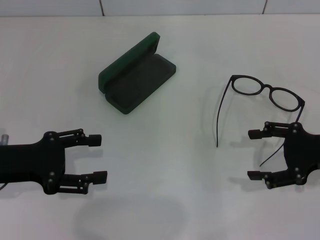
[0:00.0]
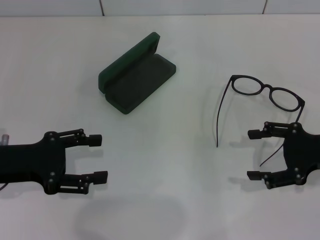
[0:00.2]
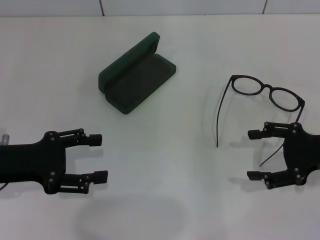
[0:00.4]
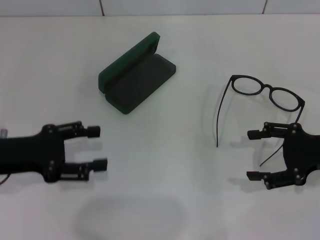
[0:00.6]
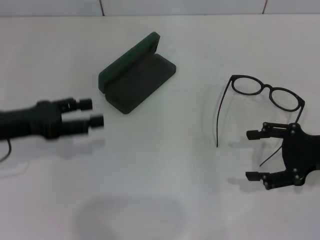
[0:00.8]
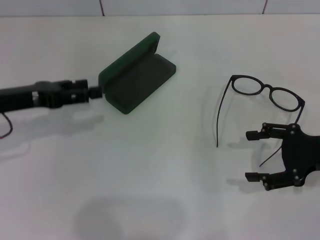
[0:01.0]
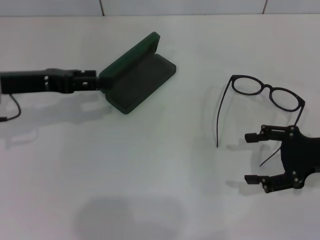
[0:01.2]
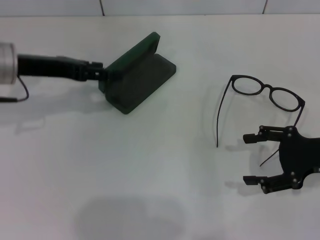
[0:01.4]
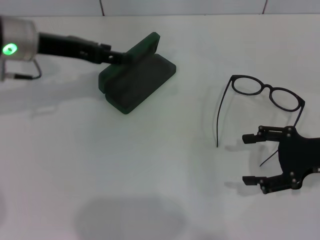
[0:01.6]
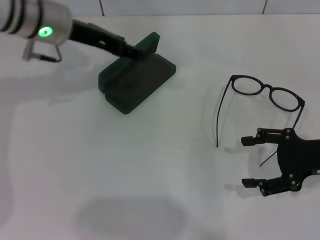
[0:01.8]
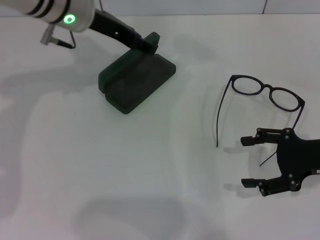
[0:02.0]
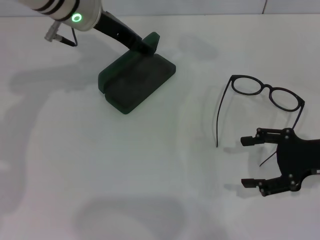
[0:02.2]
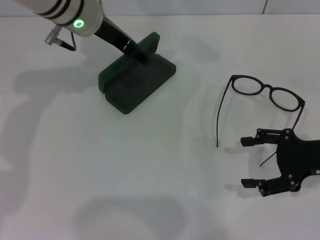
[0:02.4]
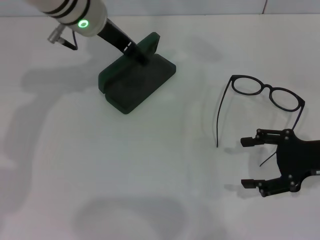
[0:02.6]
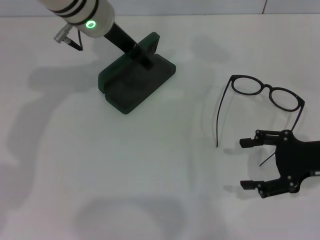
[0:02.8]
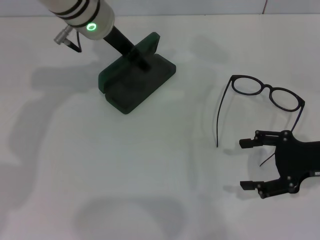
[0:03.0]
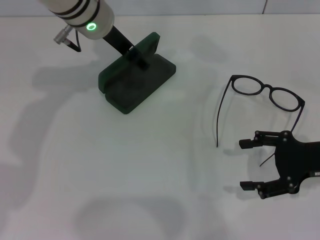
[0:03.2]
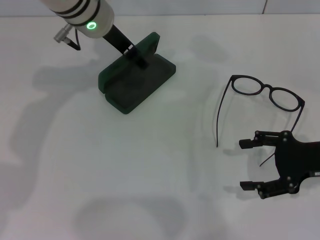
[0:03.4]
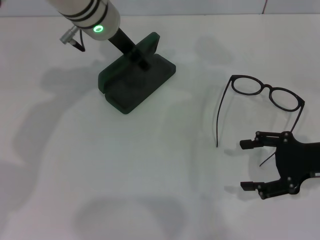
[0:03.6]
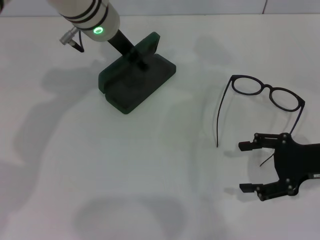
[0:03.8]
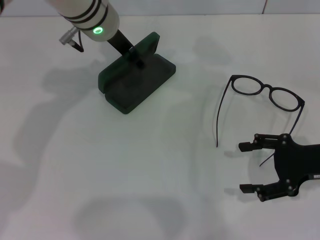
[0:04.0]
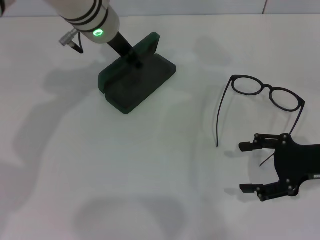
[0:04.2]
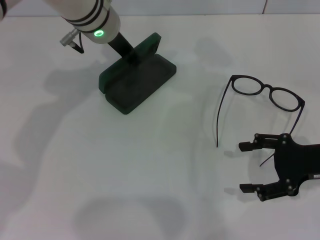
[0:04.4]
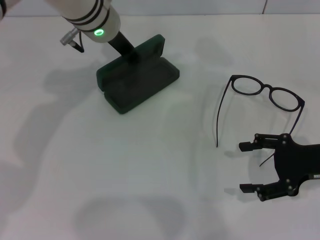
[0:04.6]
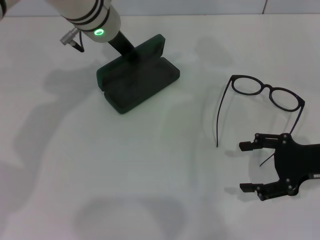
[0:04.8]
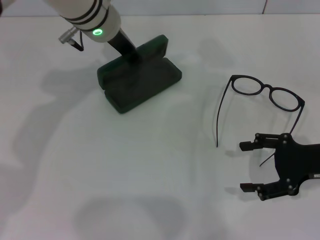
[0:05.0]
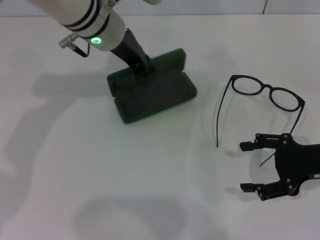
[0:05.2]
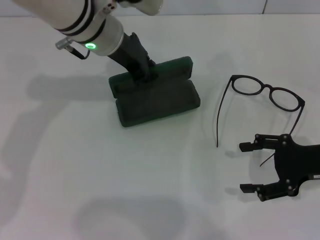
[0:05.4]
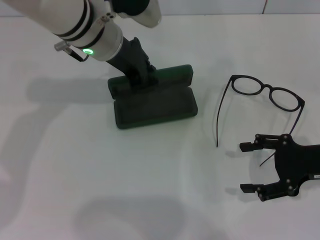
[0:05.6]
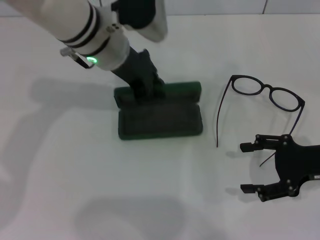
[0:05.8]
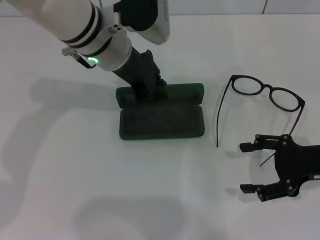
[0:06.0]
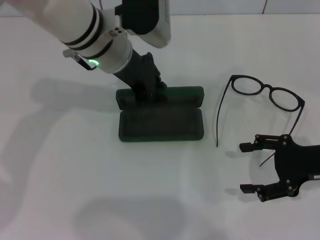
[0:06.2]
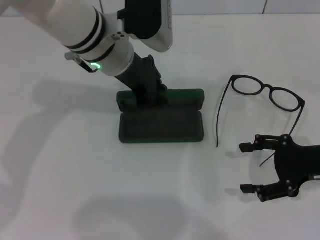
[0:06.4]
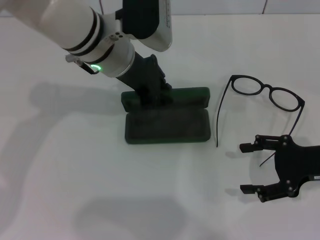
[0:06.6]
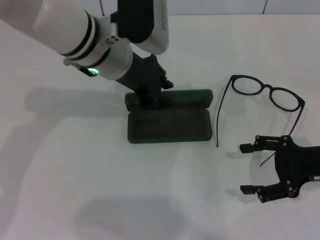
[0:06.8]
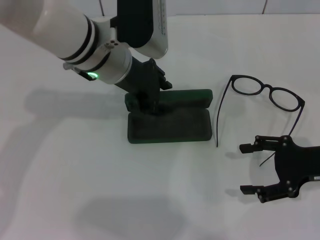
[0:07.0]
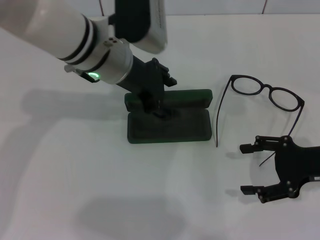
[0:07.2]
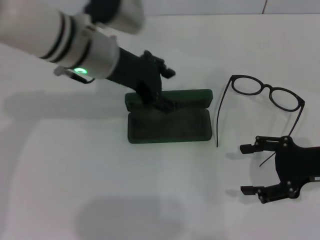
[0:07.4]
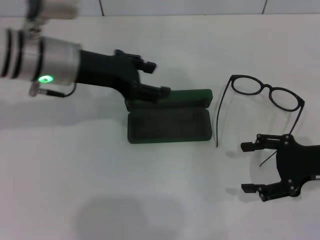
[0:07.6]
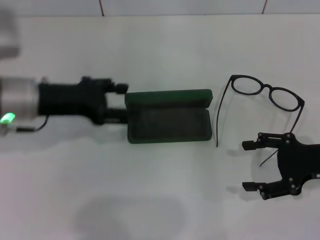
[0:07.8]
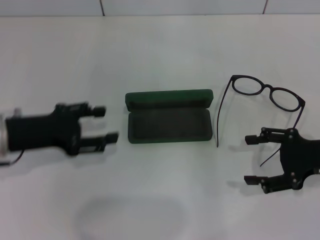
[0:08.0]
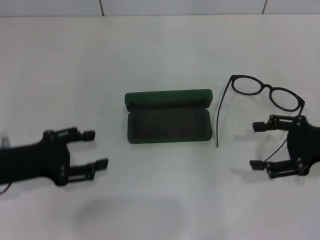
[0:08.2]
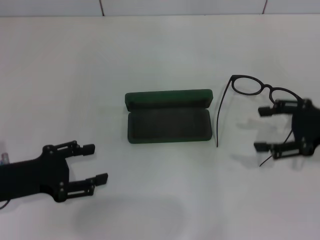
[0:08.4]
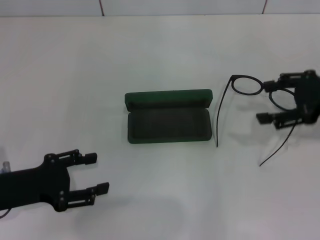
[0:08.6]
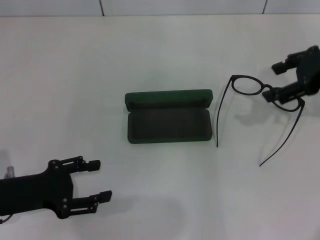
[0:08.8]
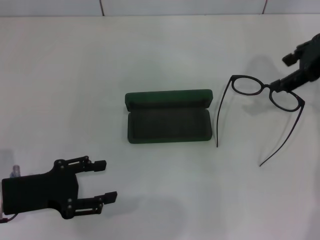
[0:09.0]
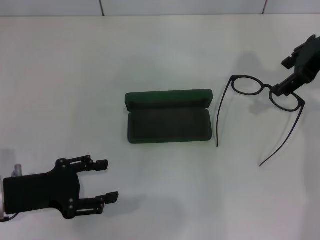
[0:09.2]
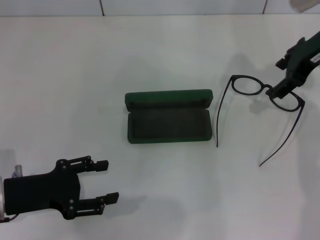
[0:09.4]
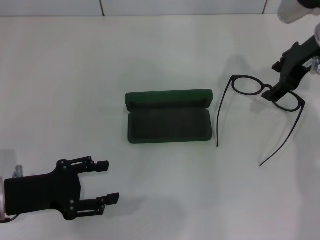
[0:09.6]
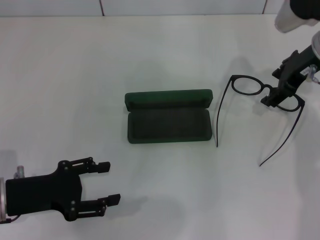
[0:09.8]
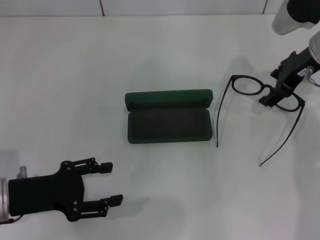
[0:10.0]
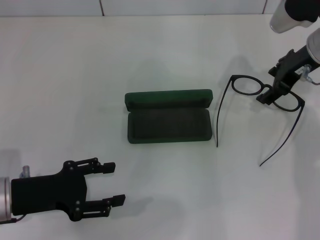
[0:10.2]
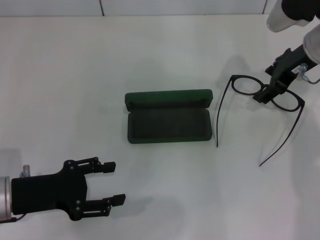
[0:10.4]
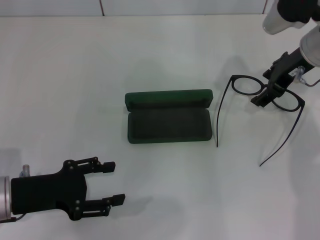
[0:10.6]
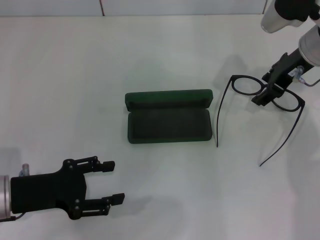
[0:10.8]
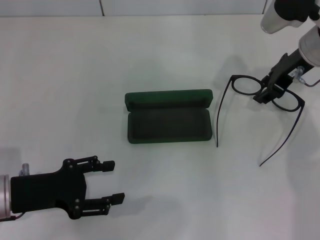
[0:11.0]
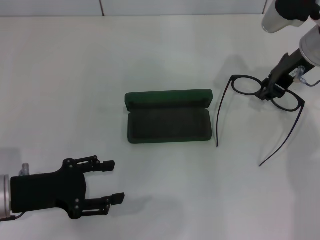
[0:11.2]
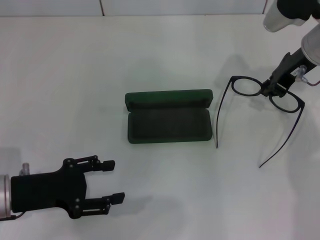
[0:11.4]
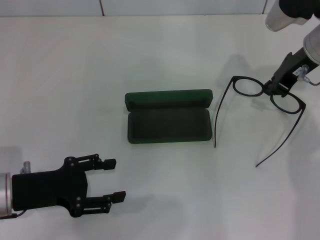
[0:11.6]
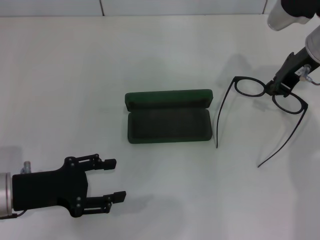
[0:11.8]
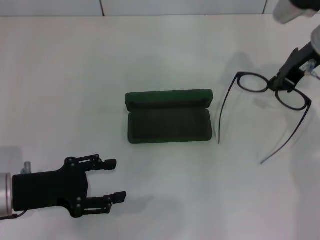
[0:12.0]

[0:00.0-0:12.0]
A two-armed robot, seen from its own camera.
Step, 0:00.0 to 0:04.4: Grab the glasses case with your left hand.
Step, 0:04.8 to 0:07.2: Place the glasses case in the center of the table with your left hand.
Step, 0:07.4 to 0:11.4: Grab the eyeglass frame with your right hand.
0:00.0 to 0:01.6: The left gripper heads forward, upward and to the right, covering some 15 cm.
0:01.6 to 0:03.0: The left gripper is displaced to the right by about 10 cm.
0:03.0 to 0:04.4: The left gripper closes.
0:06.0 to 0:07.6: The left gripper shifts roughly 10 cm to the left, and opens up.
0:07.6 to 0:09.0: The right gripper moves upward and forward, roughly 20 cm. Meanwhile the left gripper is displaced backward, downward and to the left by about 20 cm.
0:09.0 to 0:10.4: The right gripper heads downward and to the left, covering roughly 10 cm.
0:10.4 to 0:12.0: The right gripper closes its fingers.

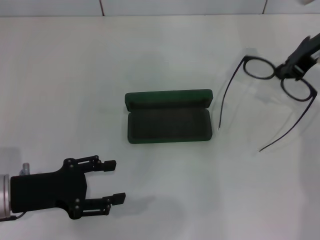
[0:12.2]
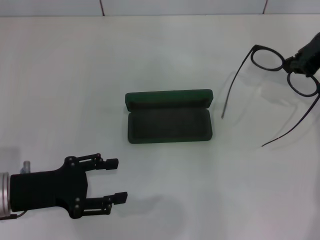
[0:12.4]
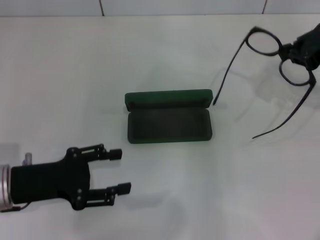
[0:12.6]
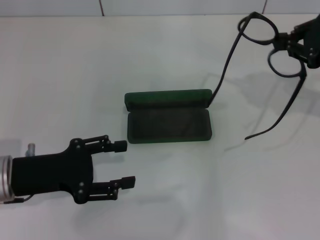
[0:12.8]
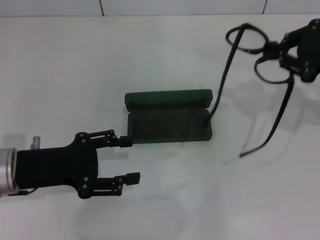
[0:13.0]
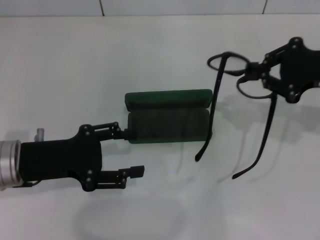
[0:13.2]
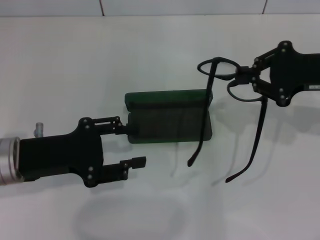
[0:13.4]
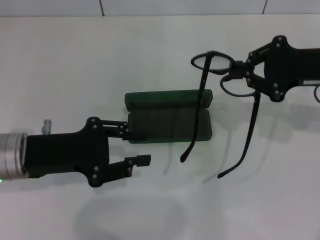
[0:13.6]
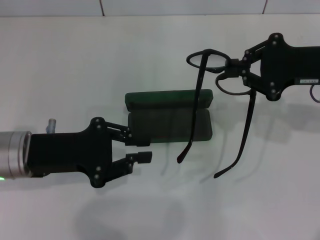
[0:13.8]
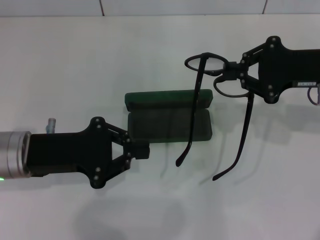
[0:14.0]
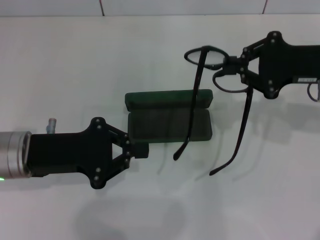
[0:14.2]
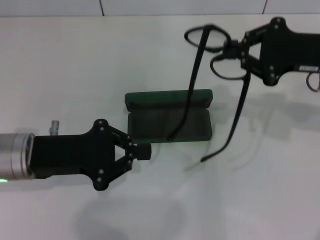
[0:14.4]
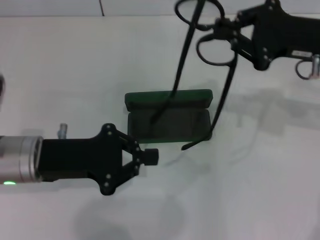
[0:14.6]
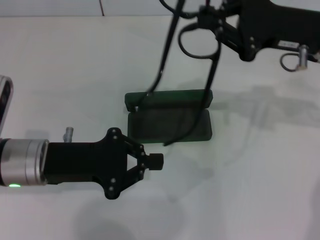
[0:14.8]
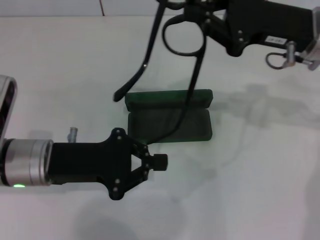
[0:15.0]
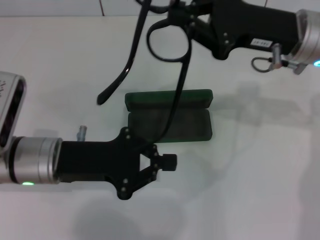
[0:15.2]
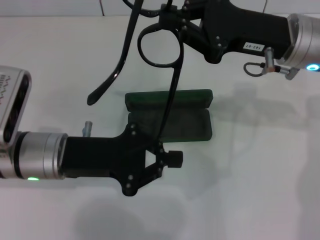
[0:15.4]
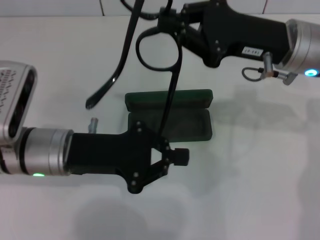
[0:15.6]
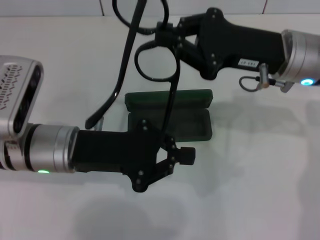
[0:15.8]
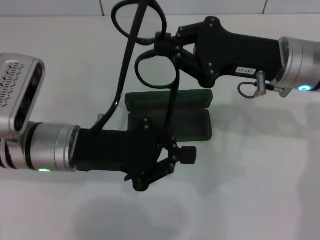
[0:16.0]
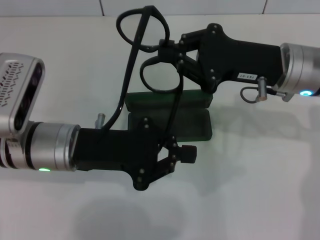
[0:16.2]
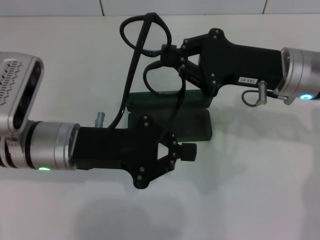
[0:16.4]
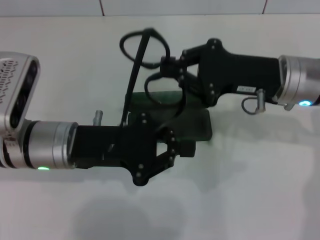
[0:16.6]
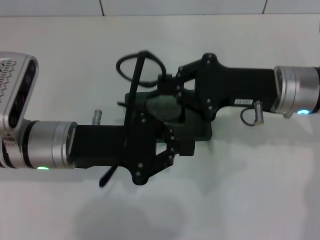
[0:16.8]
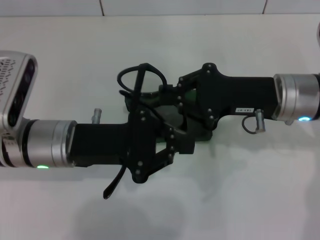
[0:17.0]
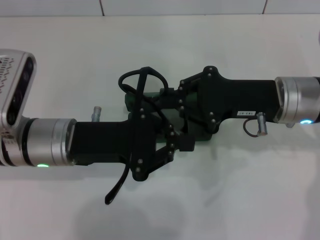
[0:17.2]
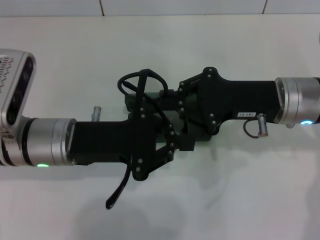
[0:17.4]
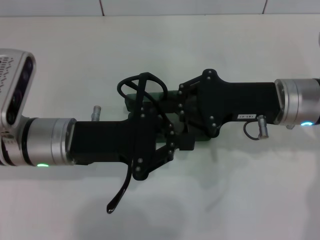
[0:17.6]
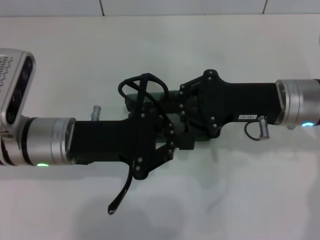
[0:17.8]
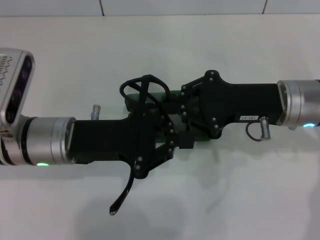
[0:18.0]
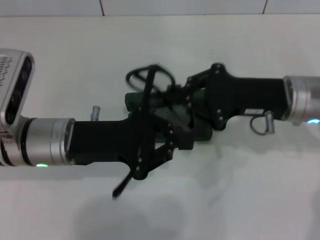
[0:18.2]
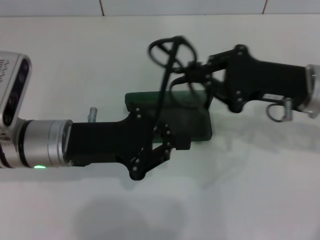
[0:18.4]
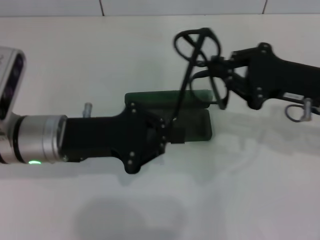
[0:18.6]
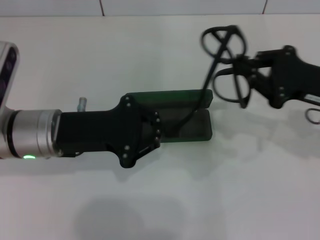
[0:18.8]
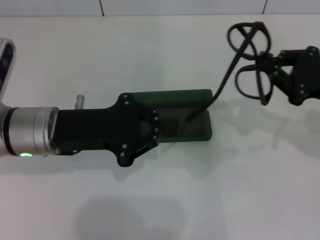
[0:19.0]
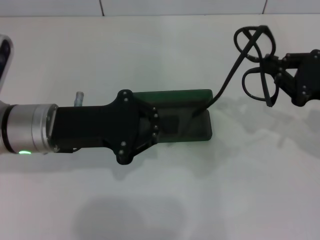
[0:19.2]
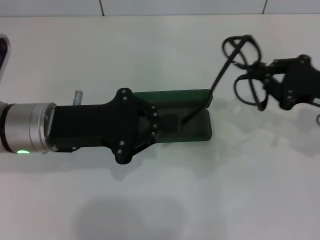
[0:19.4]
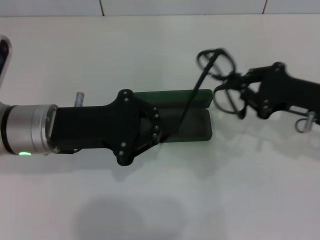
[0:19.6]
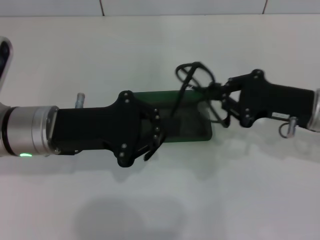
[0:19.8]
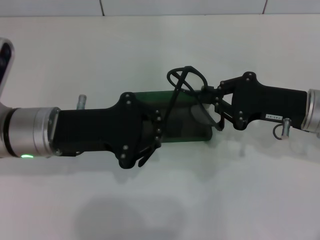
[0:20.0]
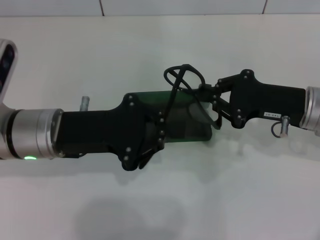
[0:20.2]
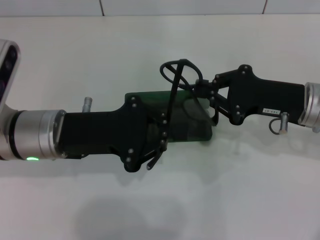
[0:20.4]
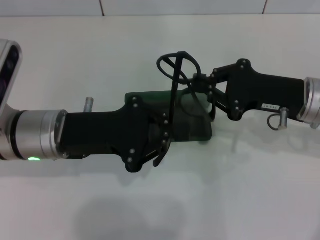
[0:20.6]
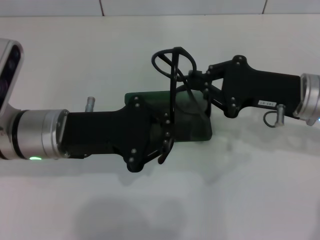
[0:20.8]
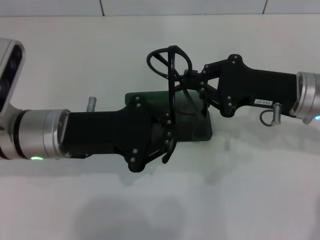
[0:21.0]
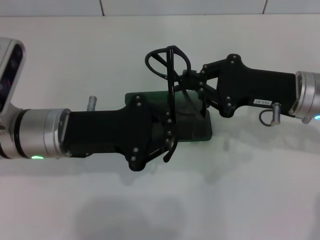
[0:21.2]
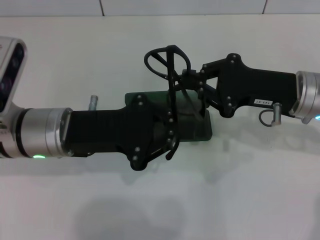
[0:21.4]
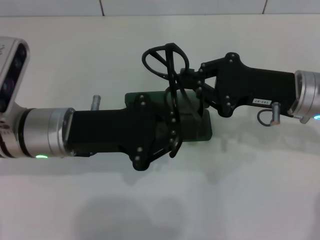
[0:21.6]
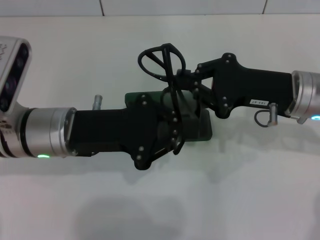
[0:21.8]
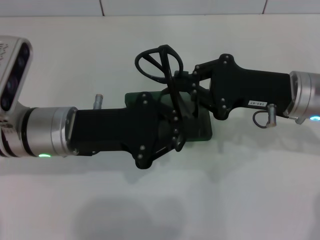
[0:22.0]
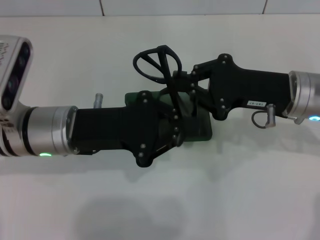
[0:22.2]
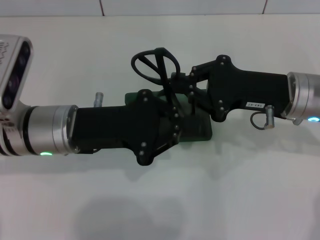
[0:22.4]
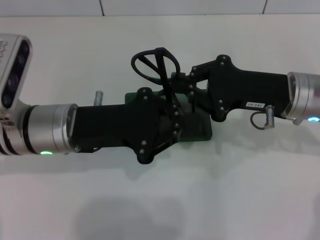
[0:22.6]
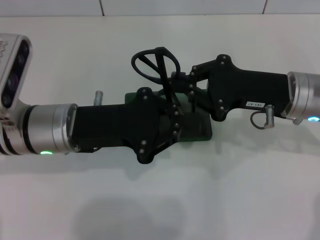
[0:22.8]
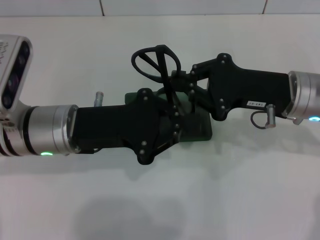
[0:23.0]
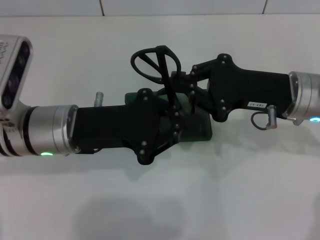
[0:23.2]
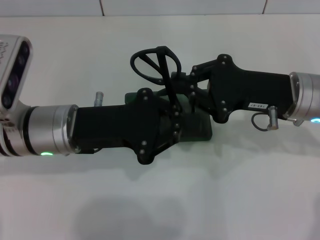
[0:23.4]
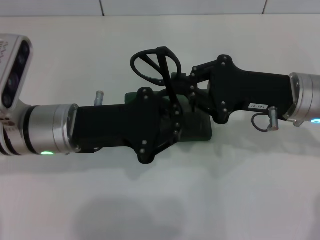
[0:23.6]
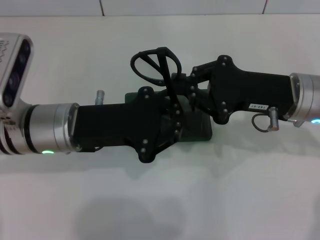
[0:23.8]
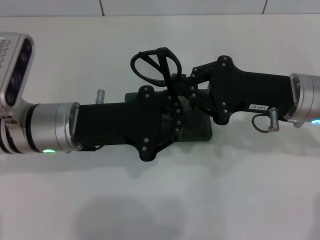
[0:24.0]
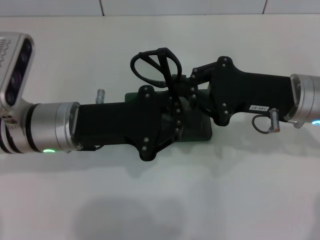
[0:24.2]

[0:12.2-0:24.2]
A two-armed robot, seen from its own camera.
Step, 0:12.2 to 0:22.8: Fold the frame with your left hand.
0:12.2 to 0:13.8: The right gripper is displaced backward by approximately 5 cm. The left gripper moves approximately 5 cm, and closes its fingers.
0:13.8 to 0:15.2: The right gripper travels to the left by approximately 5 cm, while the left gripper closes its fingers.
0:19.8 to 0:22.6: The grippers make only small movements.
0:22.6 to 0:24.2: Both grippers stay put.
